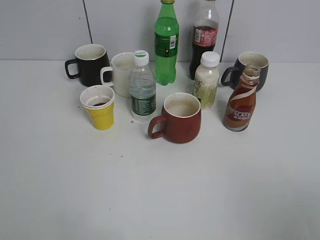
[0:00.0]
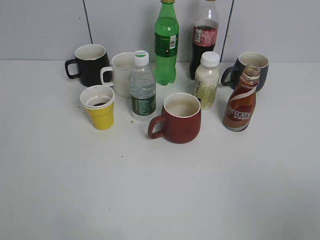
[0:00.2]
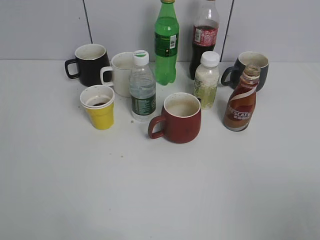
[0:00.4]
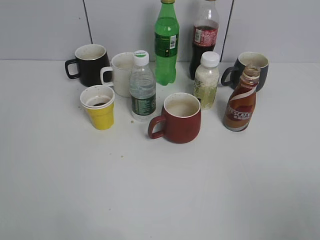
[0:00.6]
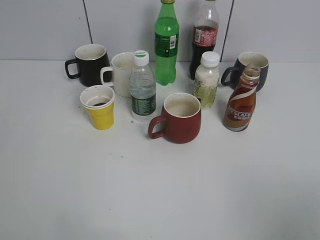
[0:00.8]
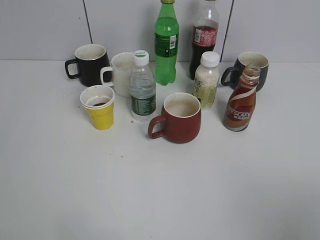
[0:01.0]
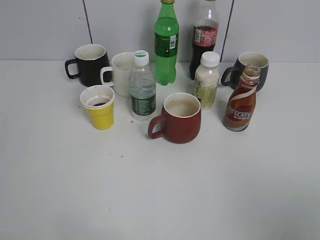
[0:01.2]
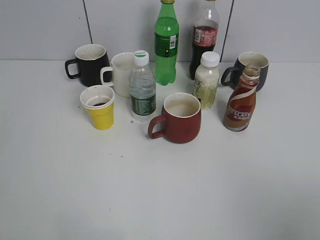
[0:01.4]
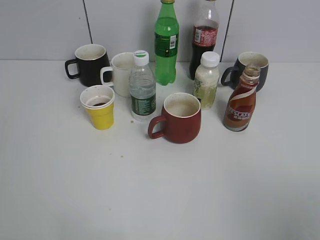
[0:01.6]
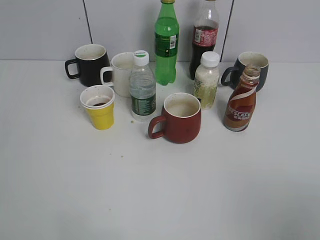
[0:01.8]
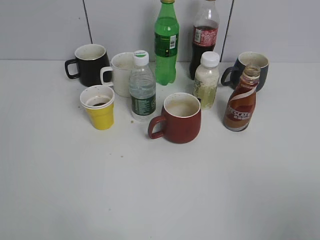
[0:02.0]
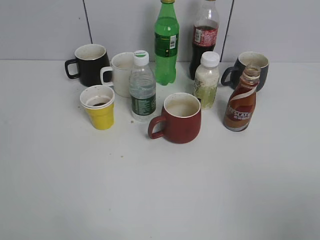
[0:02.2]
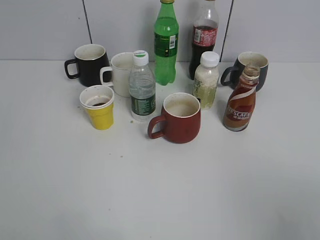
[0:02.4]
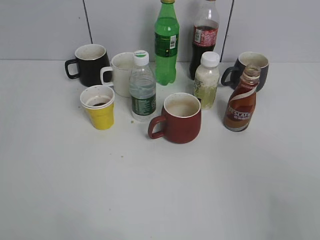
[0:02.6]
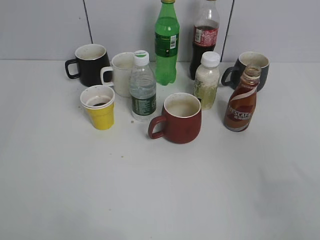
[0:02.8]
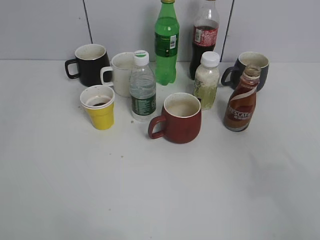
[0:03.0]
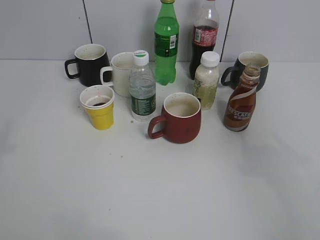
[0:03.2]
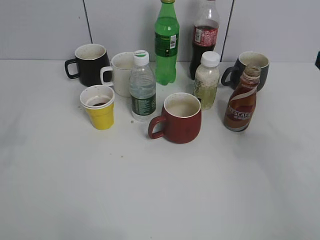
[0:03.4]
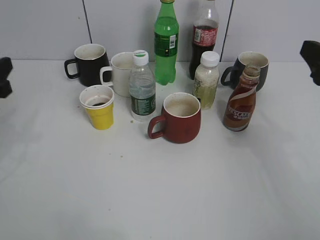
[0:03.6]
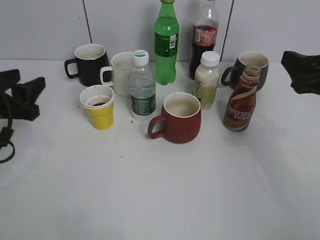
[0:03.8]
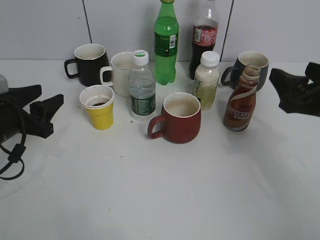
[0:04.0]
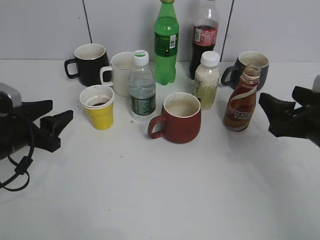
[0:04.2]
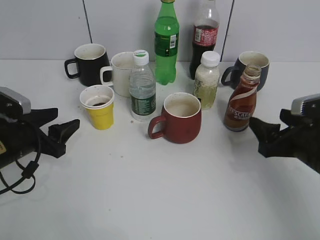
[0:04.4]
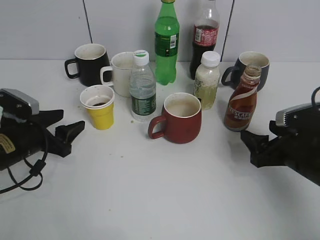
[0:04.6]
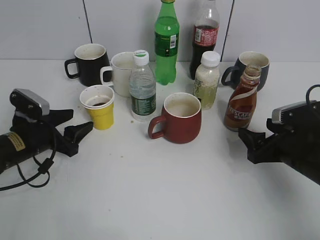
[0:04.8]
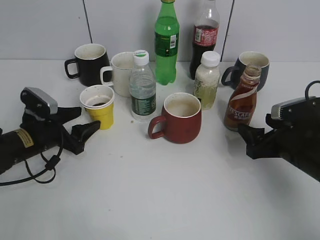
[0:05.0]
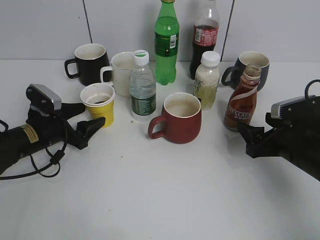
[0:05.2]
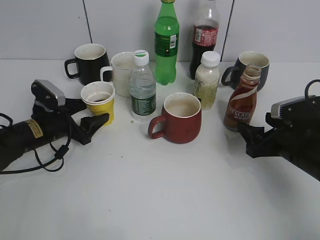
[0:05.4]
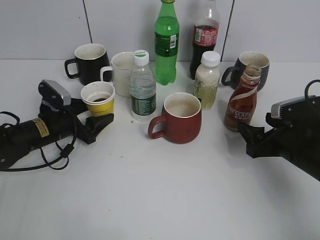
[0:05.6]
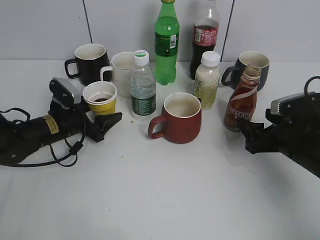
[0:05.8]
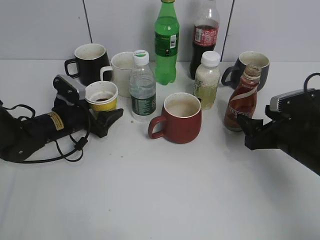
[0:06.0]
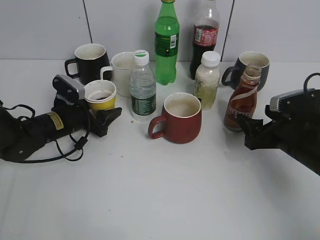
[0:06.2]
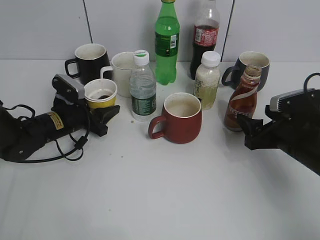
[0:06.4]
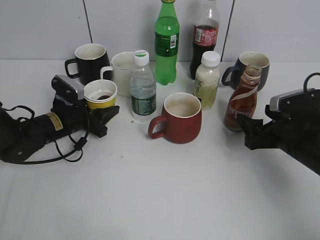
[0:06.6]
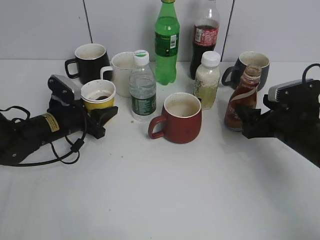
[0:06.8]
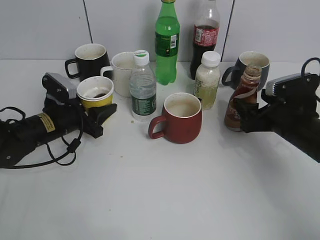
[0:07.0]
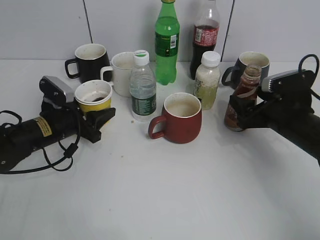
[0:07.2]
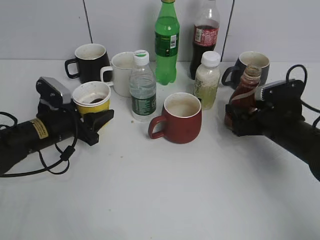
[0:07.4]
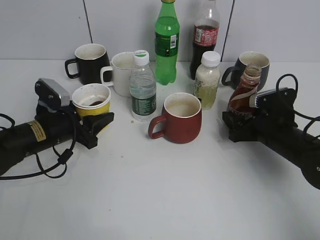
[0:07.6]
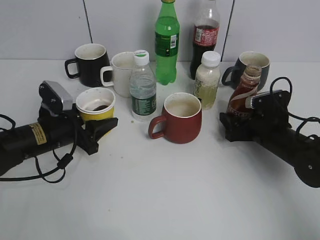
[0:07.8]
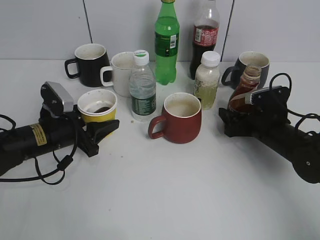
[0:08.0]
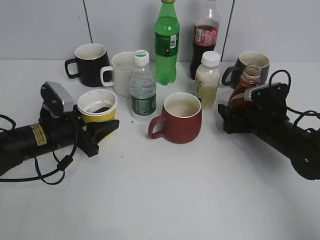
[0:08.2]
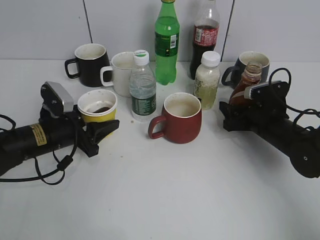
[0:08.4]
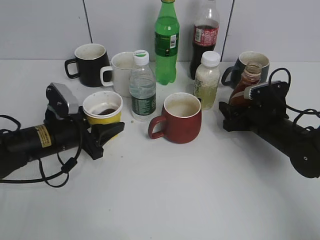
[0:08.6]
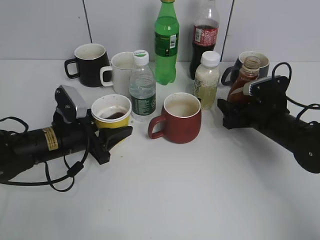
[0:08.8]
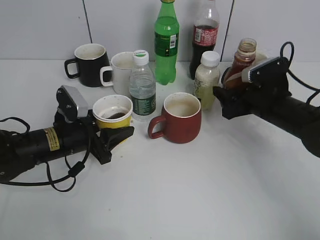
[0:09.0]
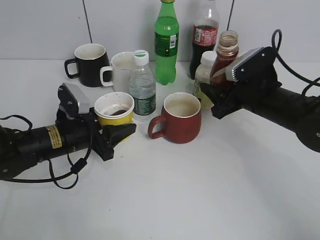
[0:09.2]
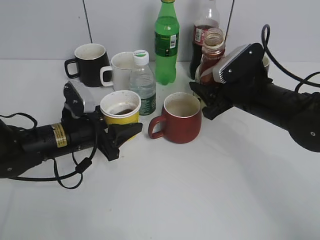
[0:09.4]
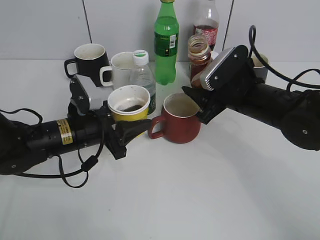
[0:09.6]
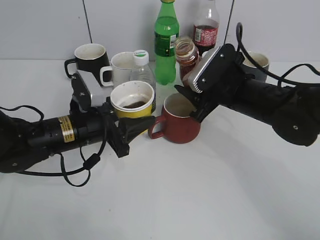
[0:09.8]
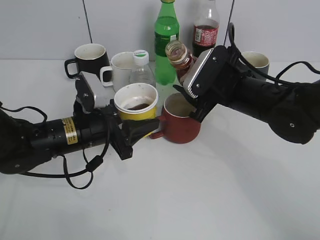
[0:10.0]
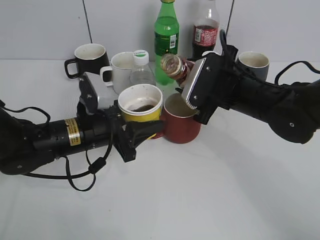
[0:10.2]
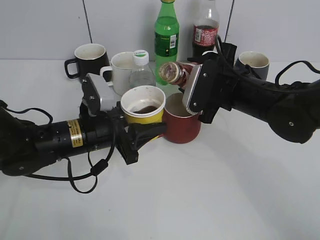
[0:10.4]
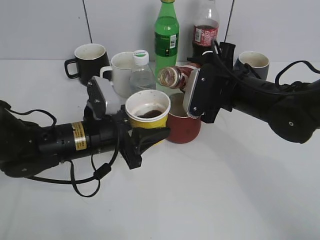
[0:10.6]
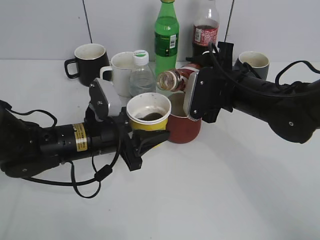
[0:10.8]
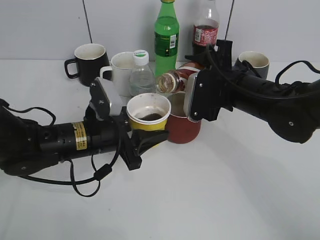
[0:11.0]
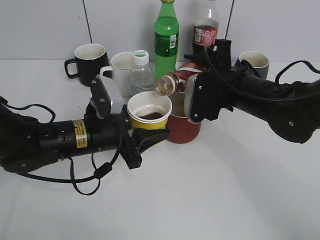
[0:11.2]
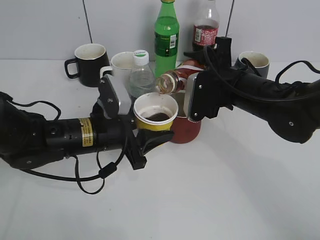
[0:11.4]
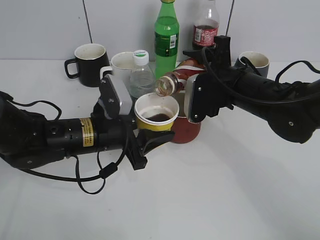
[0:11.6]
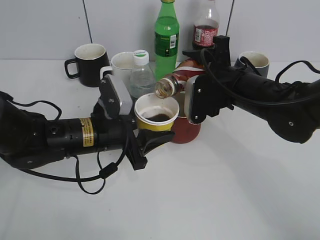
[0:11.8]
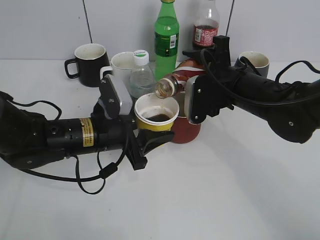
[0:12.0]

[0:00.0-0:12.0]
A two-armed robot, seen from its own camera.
Step, 0:02.2 to 0:05.6: Grasp the yellow paper cup with left gripper.
Step, 0:05.8 to 0:08.6: Grasp the bottle with coffee with right gripper.
0:01.6 to 0:03.0: The right gripper moves forward, some 10 cm.
0:03.0 to 0:04.4: Both grippers move downward and forward, some 25 cm.
0:04.4 to 0:06.0: The left gripper travels forward and to the right by some 10 cm, and opens up.
0:06.0 to 0:07.6: The left gripper is displaced backward by roughly 5 cm, and closes, while the right gripper shifts by some 5 cm.
0:07.6 to 0:09.0: The right gripper changes place by some 5 cm, and closes.
0:09.0 to 0:10.4: The right gripper shifts some 10 cm to the left. Meanwhile the left gripper shifts approximately 5 cm to the right.

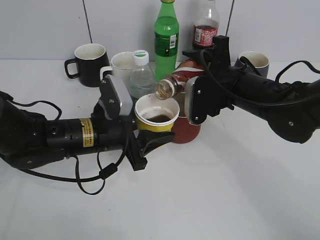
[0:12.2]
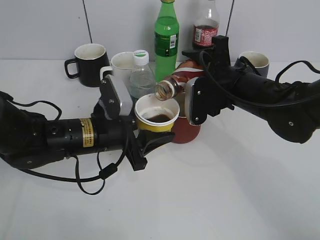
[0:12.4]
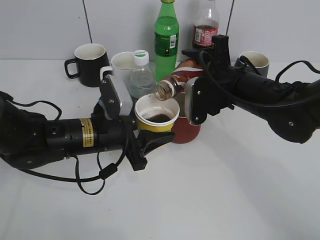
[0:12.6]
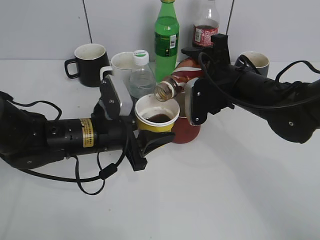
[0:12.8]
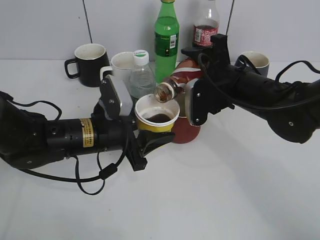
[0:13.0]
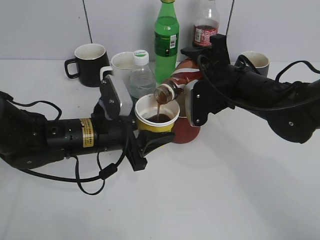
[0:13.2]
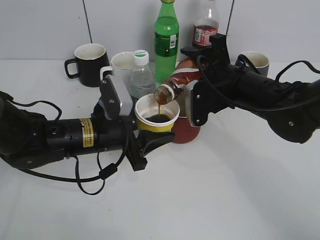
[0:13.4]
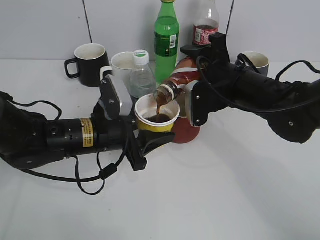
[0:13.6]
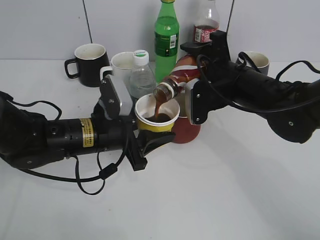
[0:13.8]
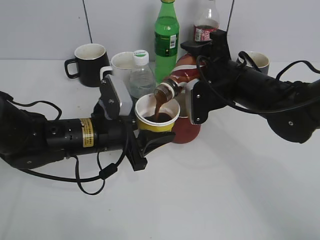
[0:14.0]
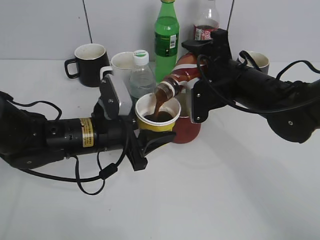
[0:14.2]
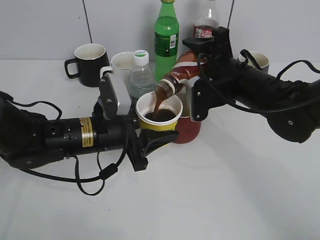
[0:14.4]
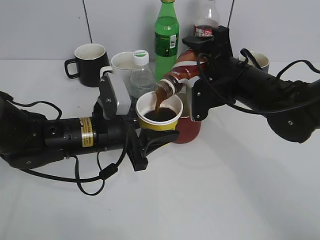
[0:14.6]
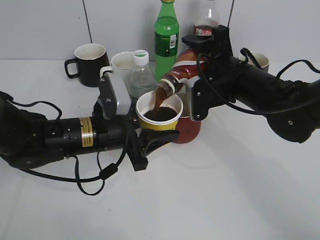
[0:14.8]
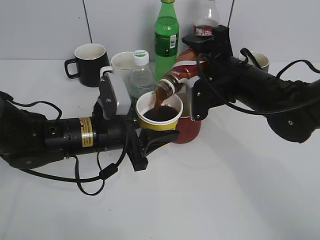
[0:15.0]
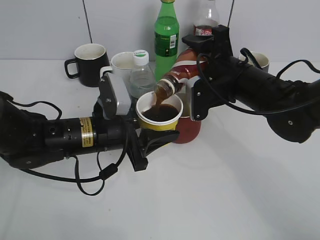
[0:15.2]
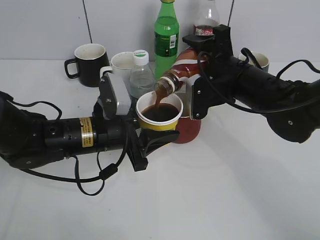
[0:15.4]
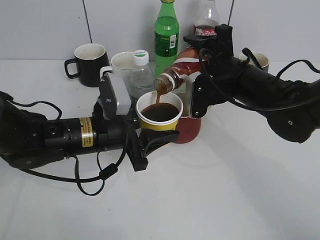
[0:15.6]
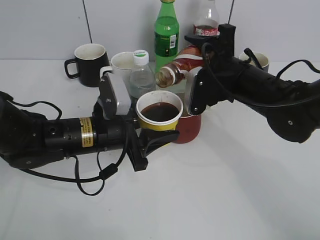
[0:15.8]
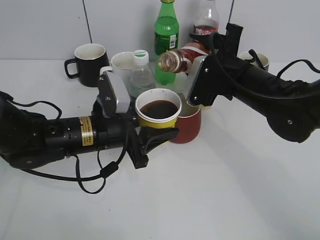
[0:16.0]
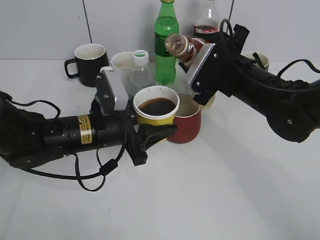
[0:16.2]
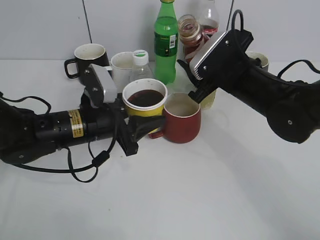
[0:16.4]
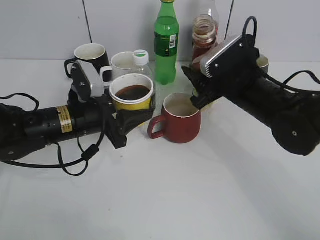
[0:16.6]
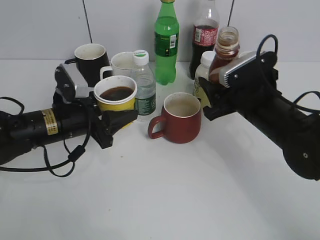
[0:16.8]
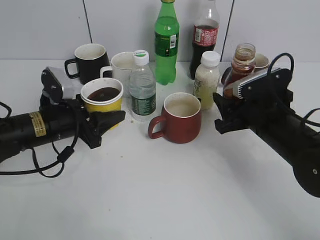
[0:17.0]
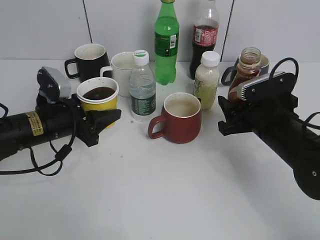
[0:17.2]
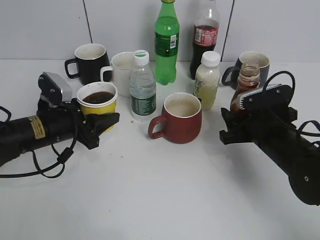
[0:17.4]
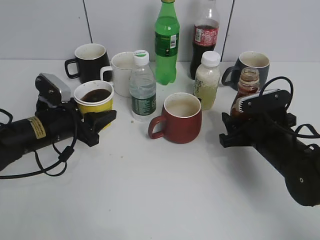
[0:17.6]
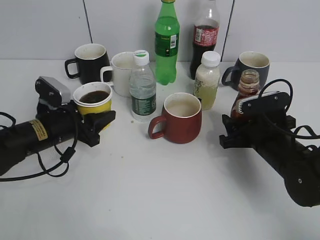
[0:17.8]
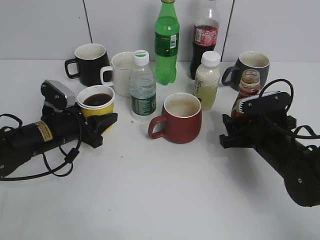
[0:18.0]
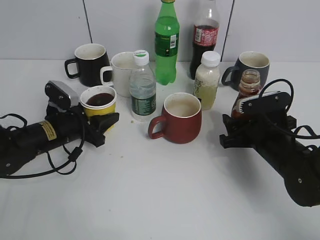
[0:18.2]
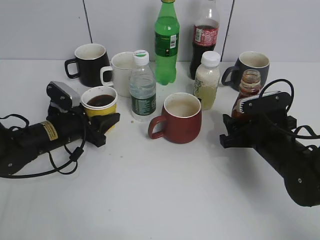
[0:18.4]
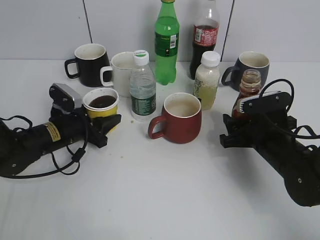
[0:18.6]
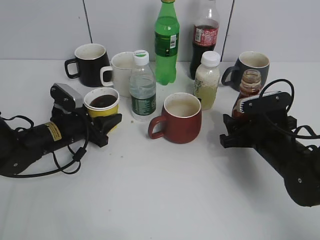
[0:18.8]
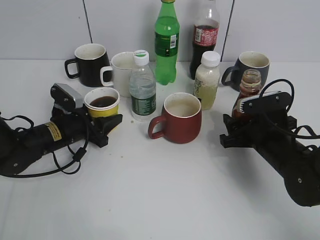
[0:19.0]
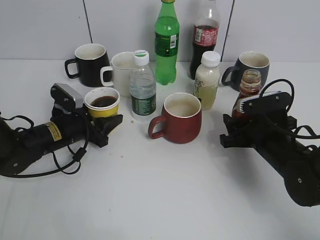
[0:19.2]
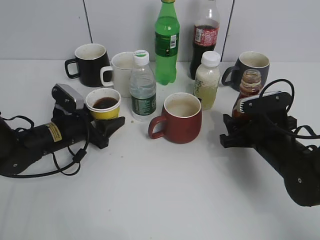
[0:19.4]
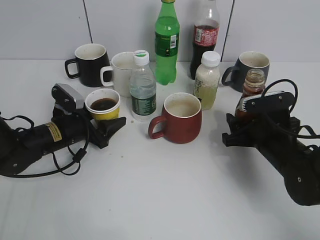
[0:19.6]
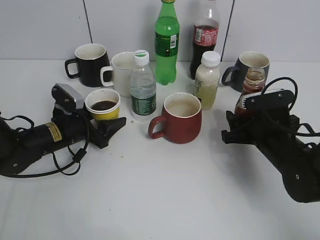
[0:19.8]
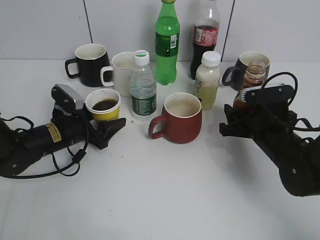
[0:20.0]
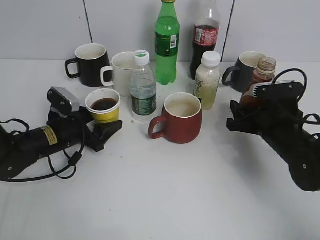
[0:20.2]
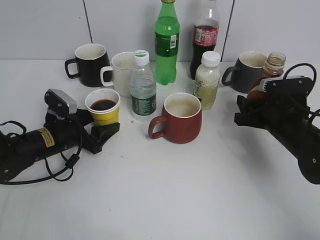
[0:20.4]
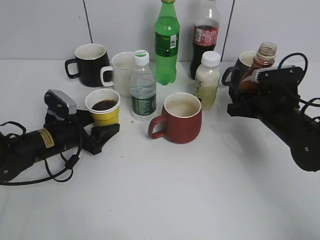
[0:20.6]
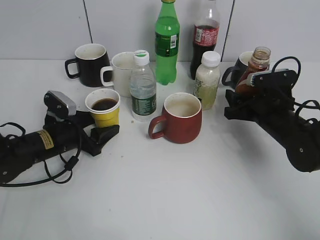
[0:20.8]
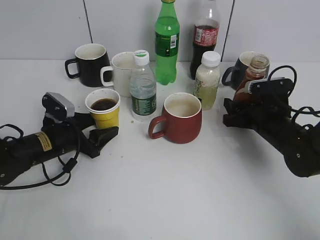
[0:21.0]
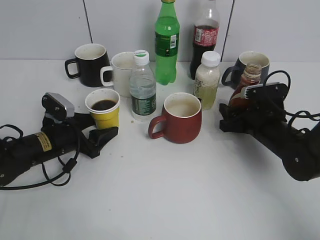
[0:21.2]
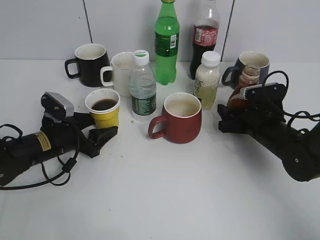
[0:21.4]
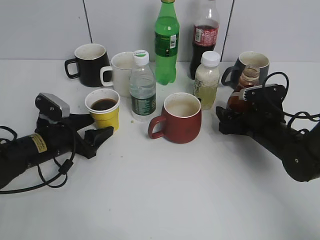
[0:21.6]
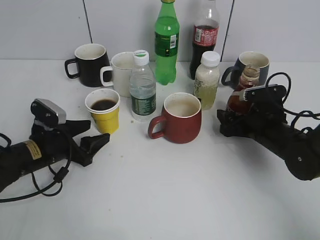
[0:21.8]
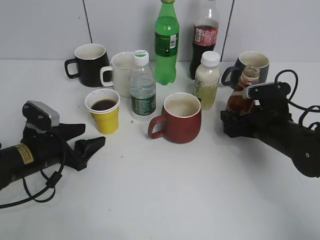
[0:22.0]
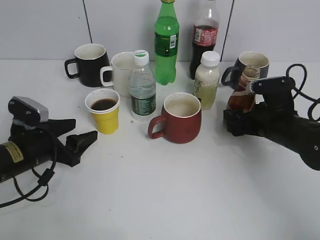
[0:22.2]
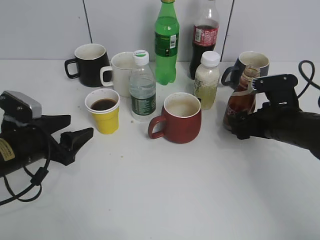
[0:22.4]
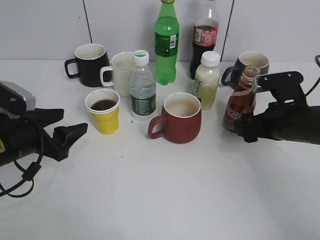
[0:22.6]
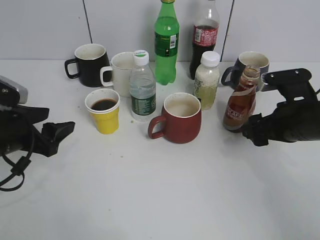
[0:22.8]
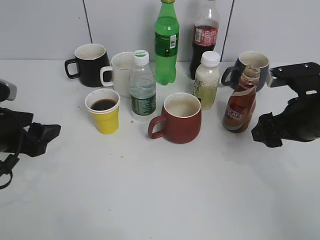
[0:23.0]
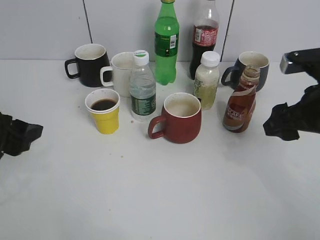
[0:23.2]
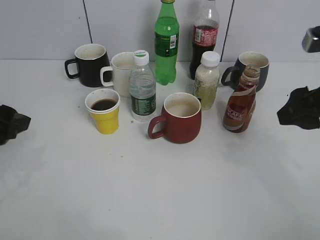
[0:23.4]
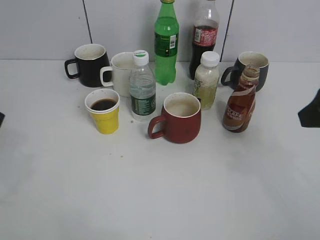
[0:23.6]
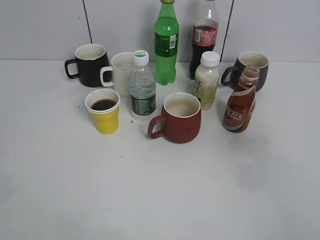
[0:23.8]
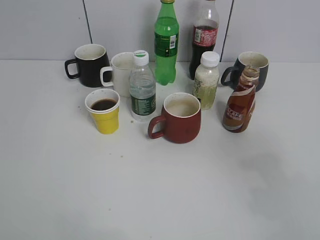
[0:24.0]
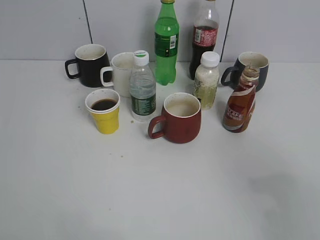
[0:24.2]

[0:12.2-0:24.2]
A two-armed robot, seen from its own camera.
Step, 0:12.2 to 0:16.4: Pour the coffee from bottle to cup with right gripper.
Step, 0:16.6 to 0:22.2: Place the coffee bottle on the table with right gripper.
0:12.2 to 0:15.2: The grippers move only a little.
0:16.6 to 0:18.2: The left gripper moves to the left and downward, about 10 cm. The right gripper shifts about 10 cm downward and to the right.
0:18.2 to 0:19.8: The left gripper opens its fingers.
0:19.8 to 0:21.2: The right gripper changes place by about 5 cm.
0:21.2 to 0:22.6: The right gripper moves upward, some 5 cm, and opens, while the left gripper goes some 10 cm upward and backward.
0:22.6 to 0:24.2: The grippers both shift backward and upward by about 30 cm. The left gripper closes its fingers.
